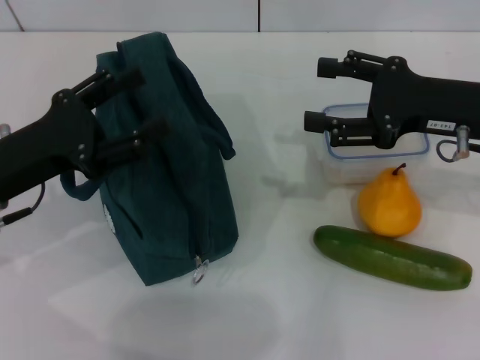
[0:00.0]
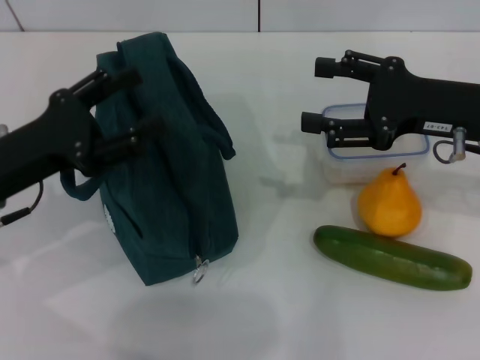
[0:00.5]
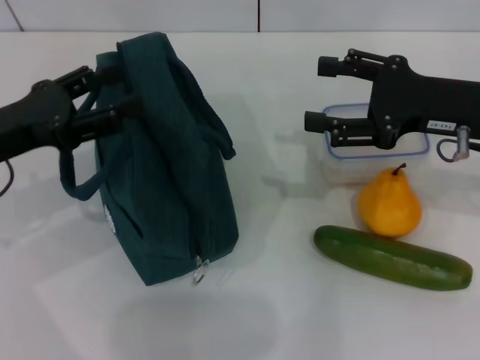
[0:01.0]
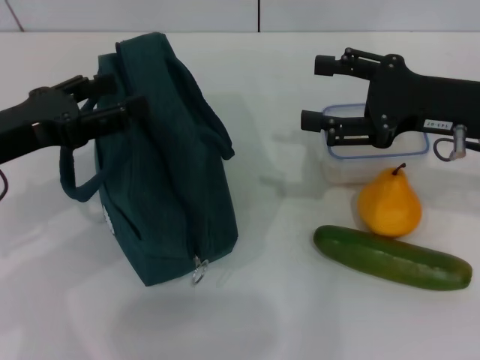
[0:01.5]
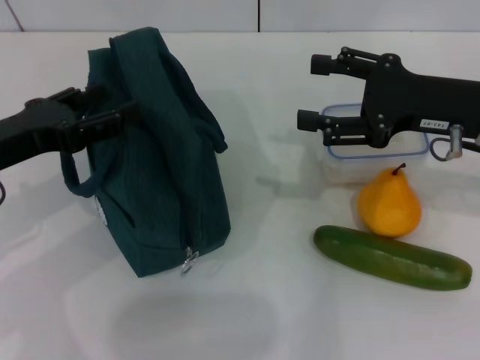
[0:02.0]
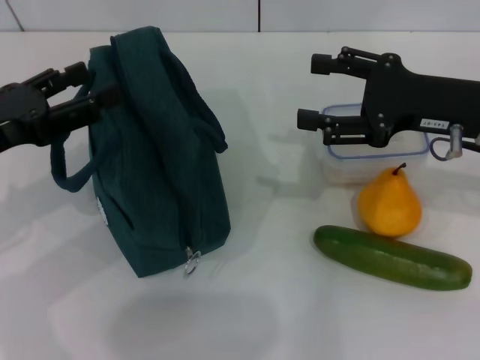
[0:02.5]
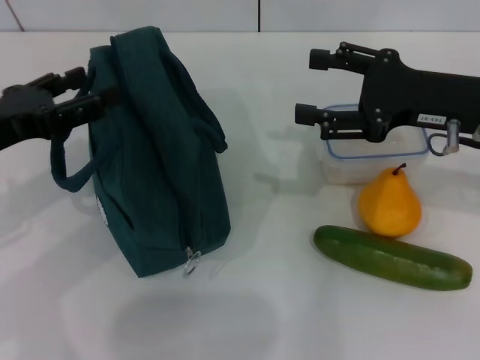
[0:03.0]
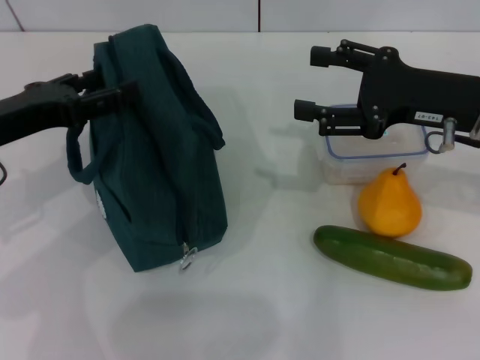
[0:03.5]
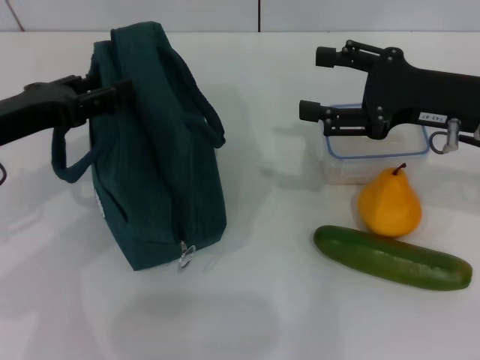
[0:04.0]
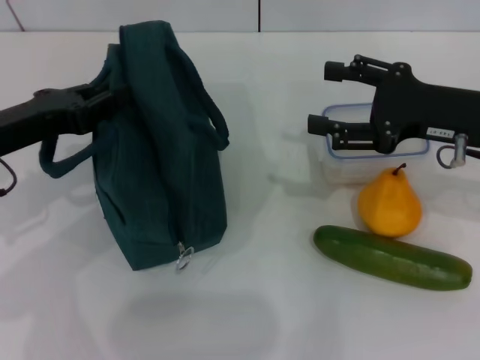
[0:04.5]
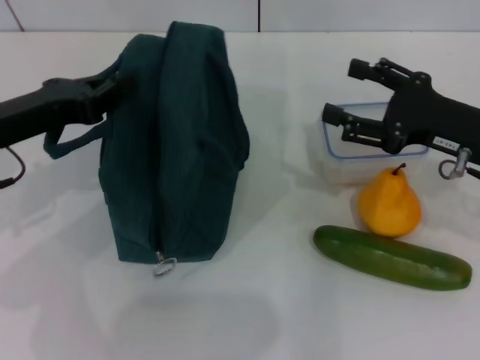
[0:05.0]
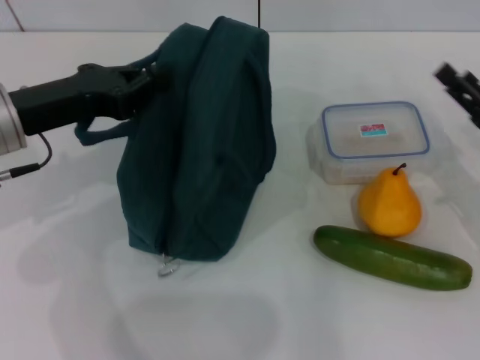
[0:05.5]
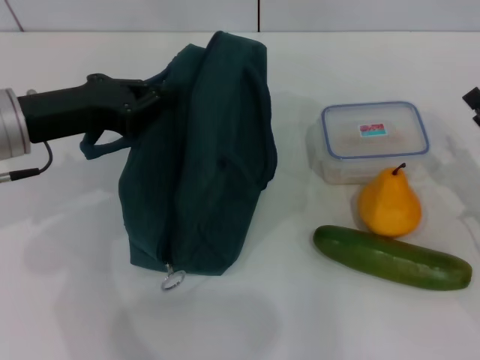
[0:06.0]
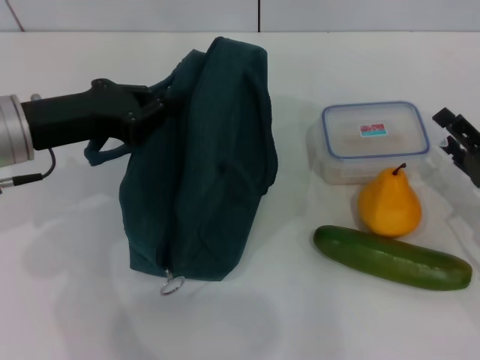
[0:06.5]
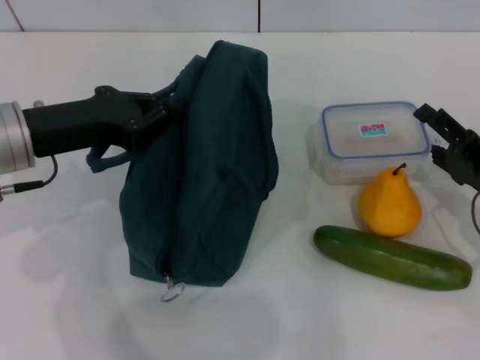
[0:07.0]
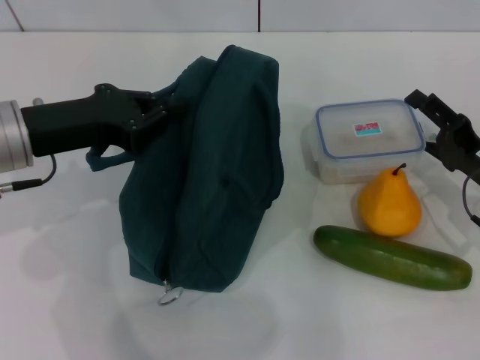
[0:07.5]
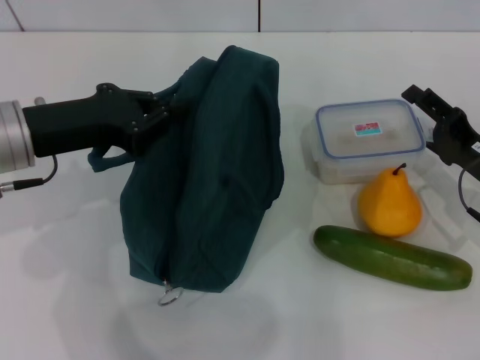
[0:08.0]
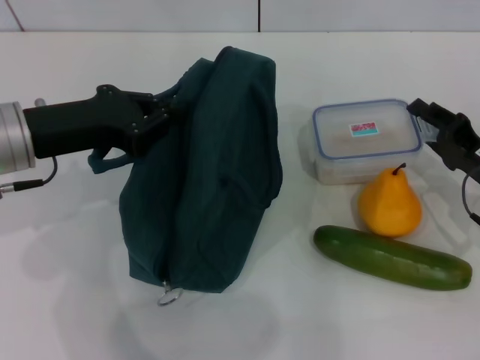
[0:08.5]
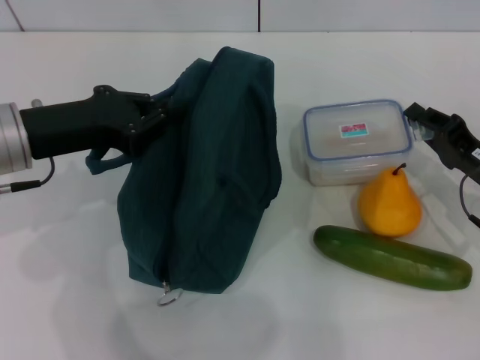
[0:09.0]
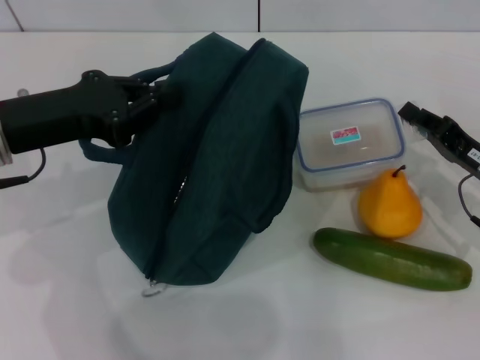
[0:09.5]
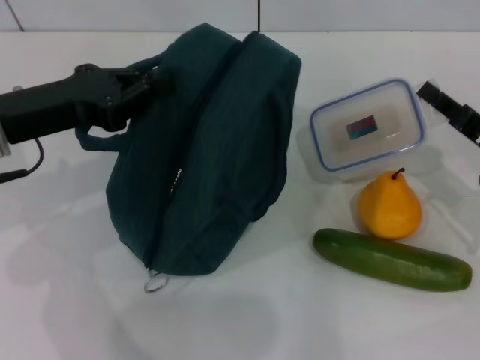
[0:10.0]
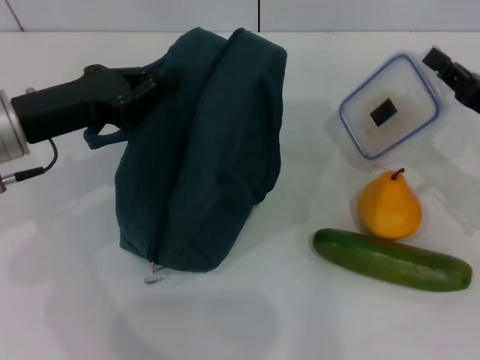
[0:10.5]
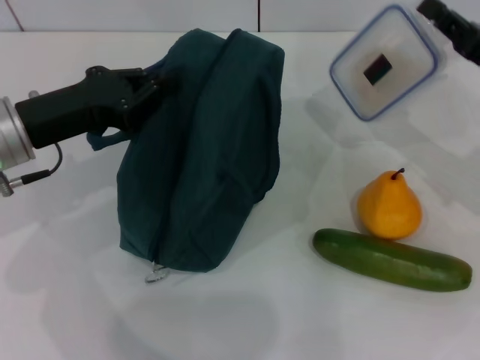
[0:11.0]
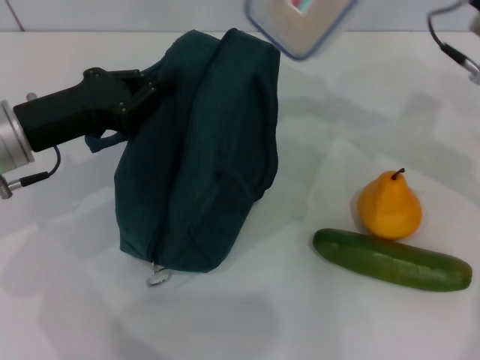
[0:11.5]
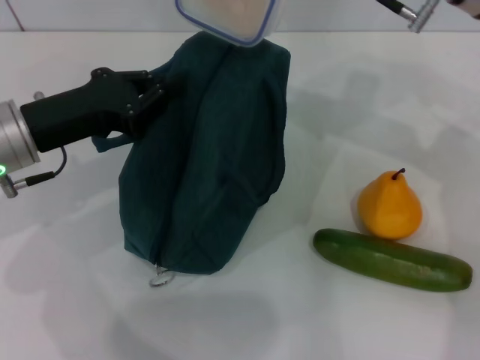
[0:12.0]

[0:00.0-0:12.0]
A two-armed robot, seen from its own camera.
Step, 0:00.0 to 0:04.5: Hold the lunch bag with your left hand.
Step, 0:05.0 to 0:09.5: Pick up the lunch box with your right hand.
0:02.0 to 0:04.0: The grippers move only a little.
0:04.0 to 0:06.0: The left gripper closes up. Meanwhile the right gripper travels downward, to the right and backward by some 15 cm.
0:06.0 to 0:08.0: The right gripper moves roughly 5 cm.
0:08.0 to 0:10.0: The right gripper closes.
0:10.0 to 0:12.0: The right gripper heads upward, to the left and forward, covering roughly 25 cm.

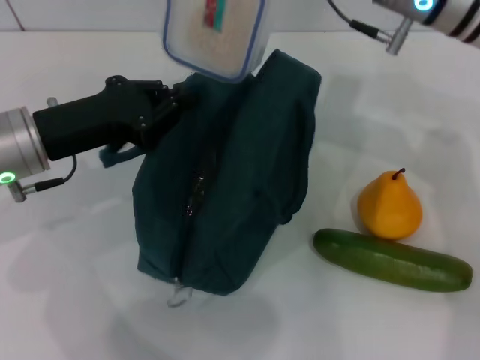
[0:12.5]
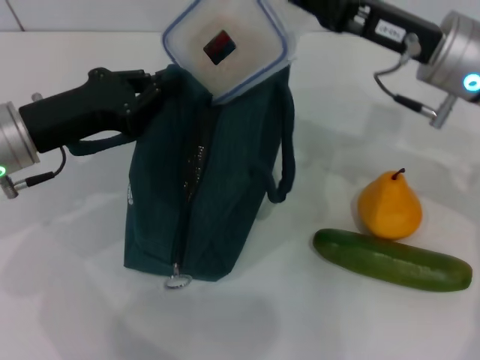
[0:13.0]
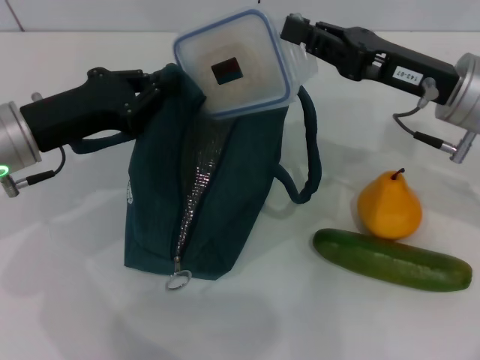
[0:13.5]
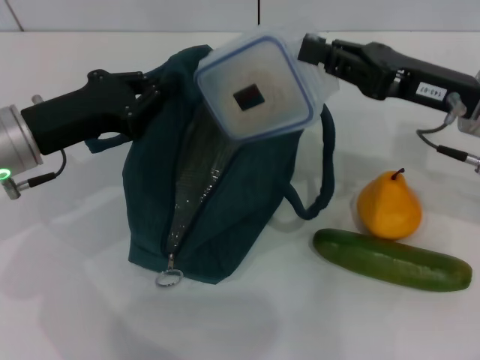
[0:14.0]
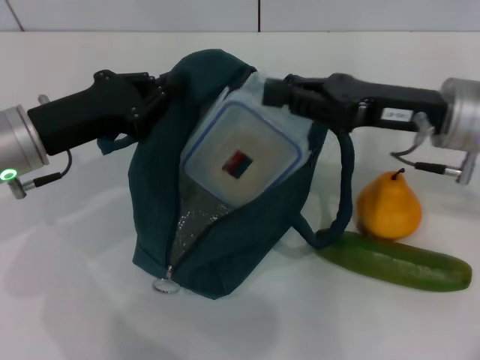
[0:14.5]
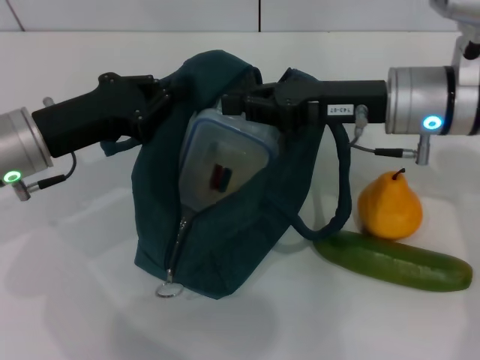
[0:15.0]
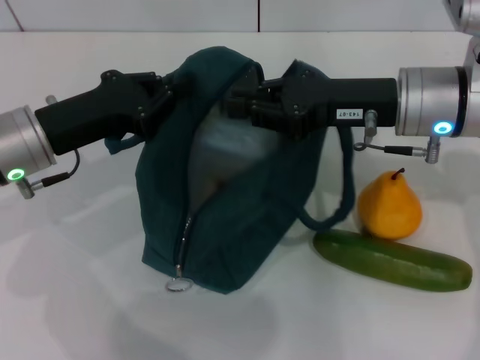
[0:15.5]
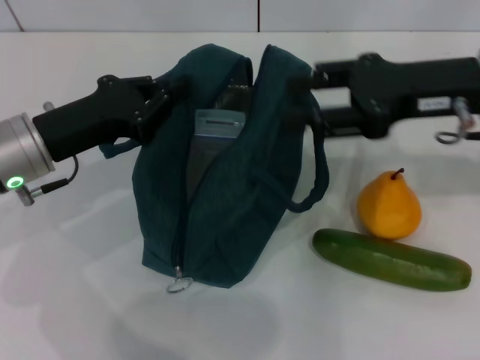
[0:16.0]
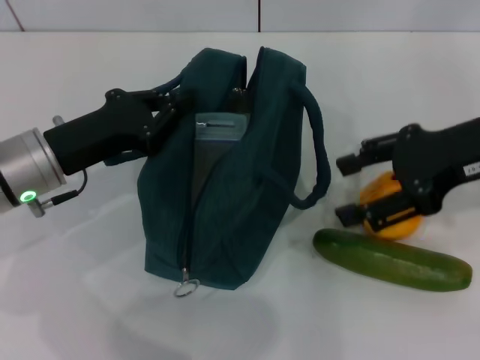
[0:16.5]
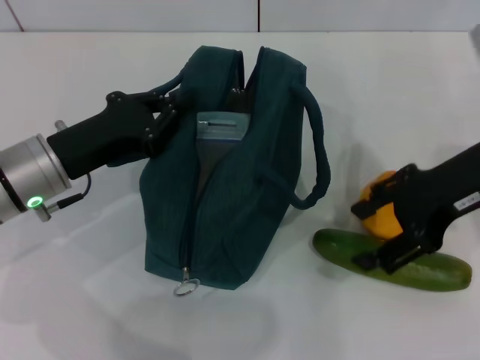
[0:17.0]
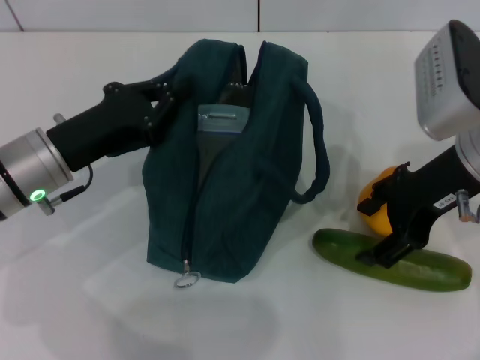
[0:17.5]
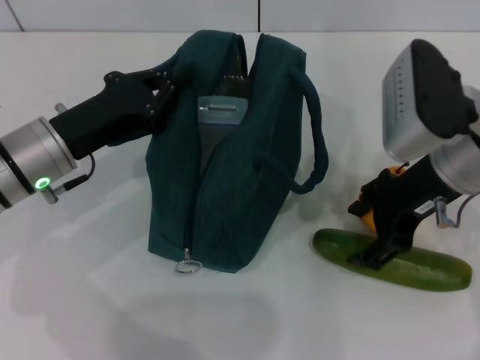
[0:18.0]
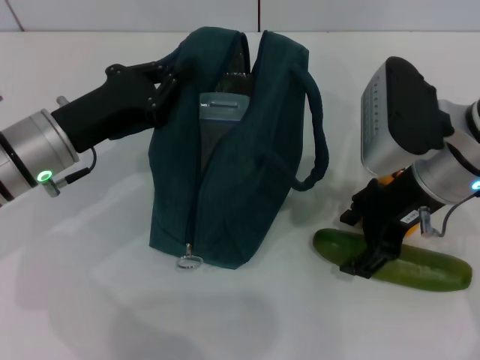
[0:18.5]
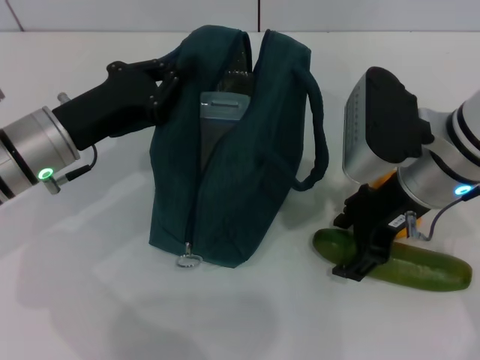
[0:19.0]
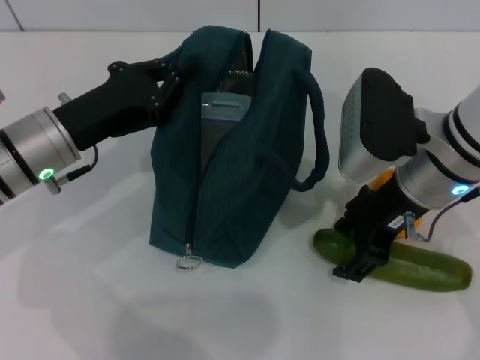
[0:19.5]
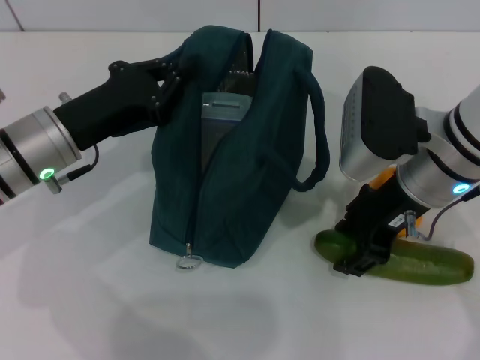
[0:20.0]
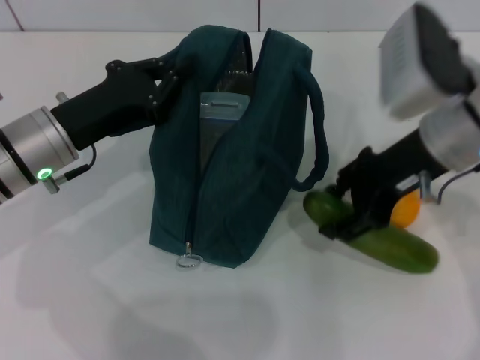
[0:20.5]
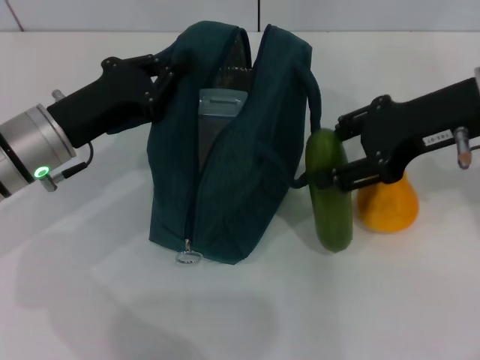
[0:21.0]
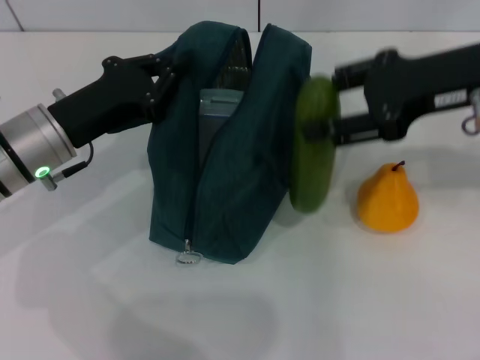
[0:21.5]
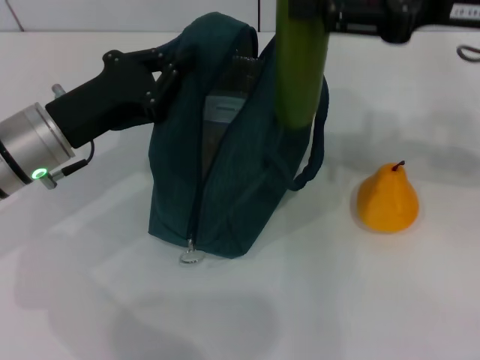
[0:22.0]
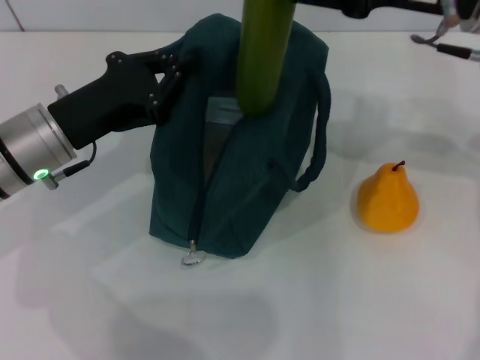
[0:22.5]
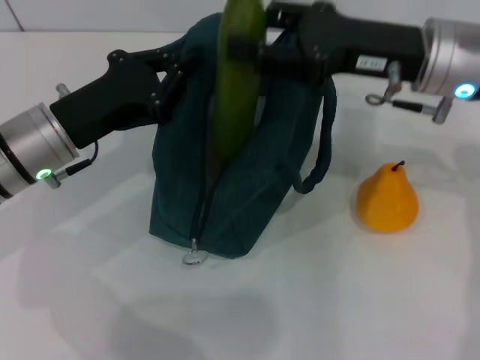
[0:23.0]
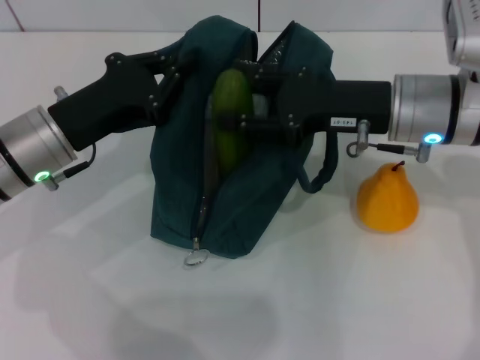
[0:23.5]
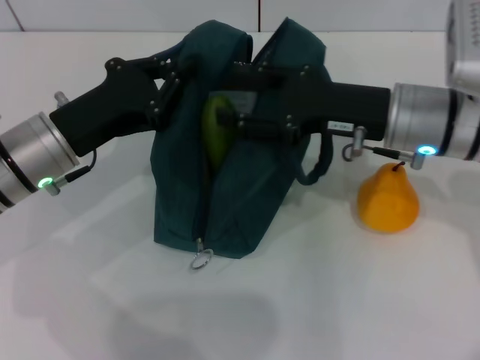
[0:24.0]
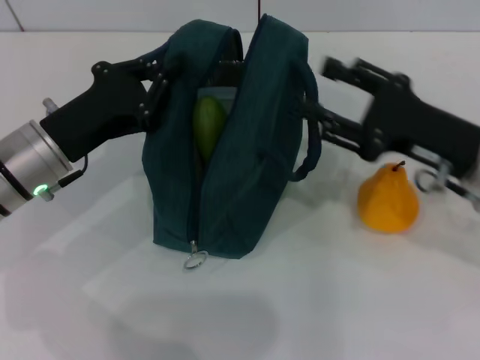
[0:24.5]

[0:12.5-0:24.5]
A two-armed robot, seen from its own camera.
Step, 0:12.5 to 0:15.5: Place the lunch box into the lunch bag with your right hand.
Step, 0:16.0 to 0:20.0: Pick up the cucumber with your right hand.
Step, 0:20.5 to 0:24.0: Put the cucumber into the lunch bag with your right hand.
0:12.5 to 0:14.5: The right gripper goes about 10 cm downward, backward and to the right.
0:14.5 to 0:16.5: The right gripper travels upward by approximately 5 cm, and opens up.
0:16.5 to 0:18.5: The right gripper is displaced to the left by some 10 cm.
0:18.5 to 0:20.5: The grippers stay close to where they were, moving slightly.
0:20.5 to 0:22.5: The right gripper shifts by about 5 cm.
0:22.5 to 0:24.5: The right gripper moves downward and backward, approximately 15 cm.

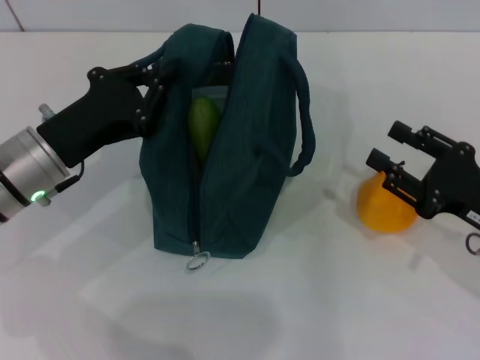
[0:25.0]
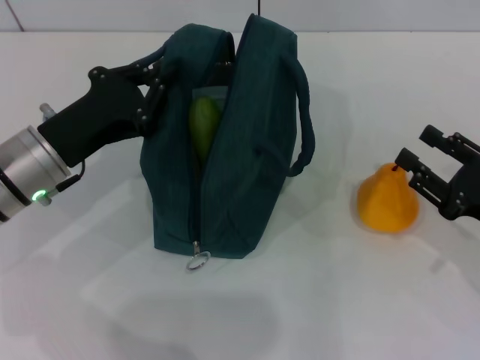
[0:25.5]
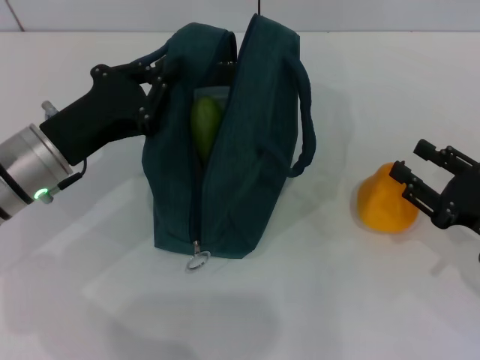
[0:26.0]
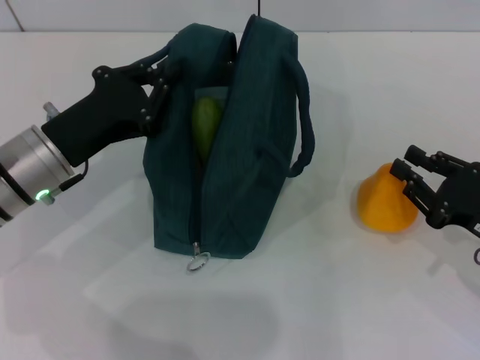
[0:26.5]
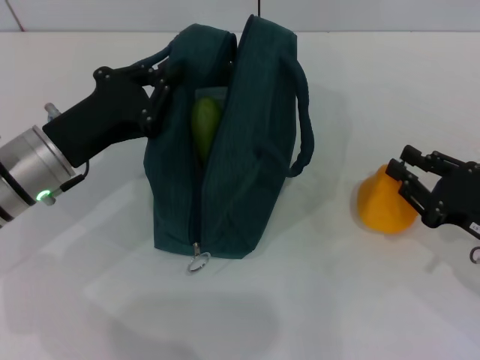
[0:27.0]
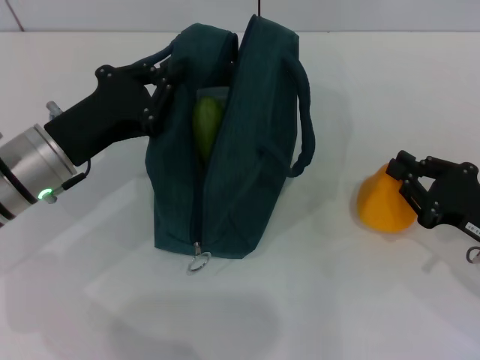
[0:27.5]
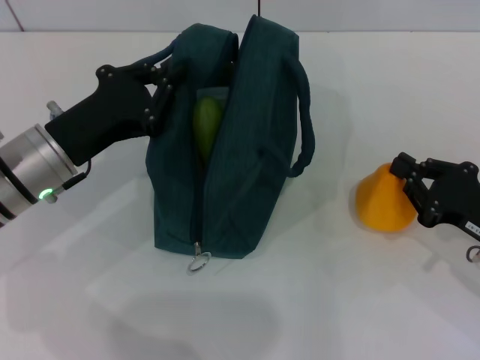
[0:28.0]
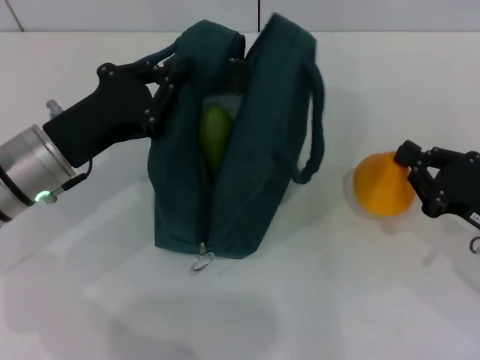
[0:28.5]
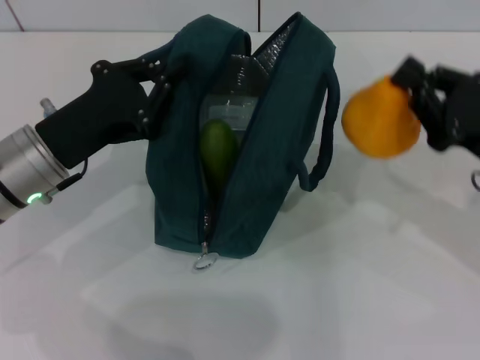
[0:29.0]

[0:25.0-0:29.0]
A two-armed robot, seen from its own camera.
Step, 0:25.0 to 0:28.0: Grab the pear with your right hand.
0:25.0 to 0:27.0: There are only small adjustments of the grippers.
0:27.0 to 0:29.0: The right gripper moves upward, roughly 5 cm.
